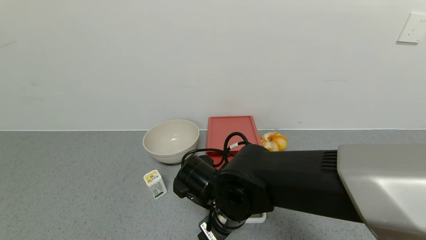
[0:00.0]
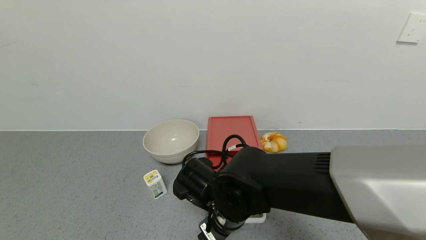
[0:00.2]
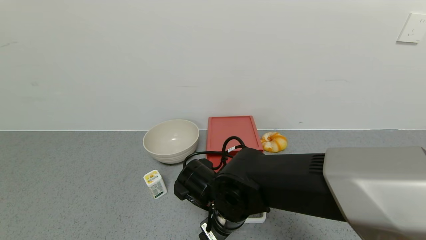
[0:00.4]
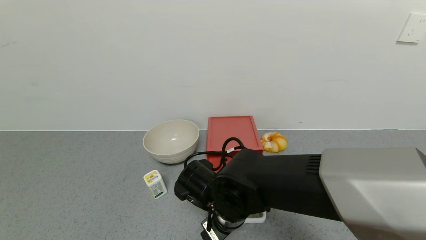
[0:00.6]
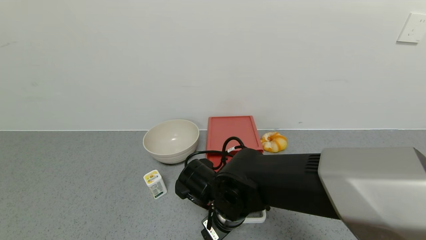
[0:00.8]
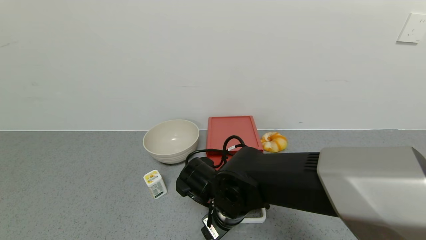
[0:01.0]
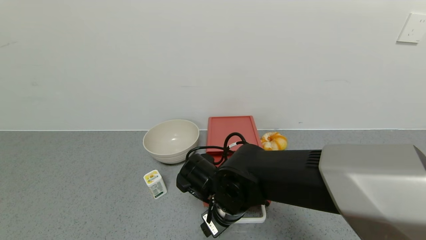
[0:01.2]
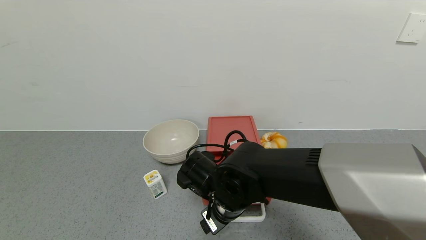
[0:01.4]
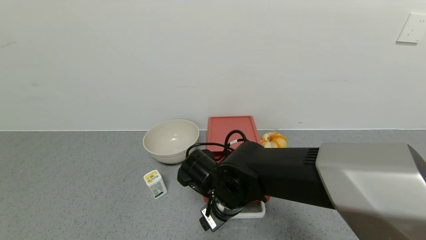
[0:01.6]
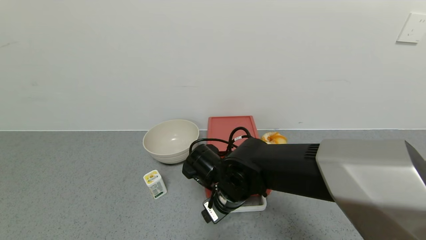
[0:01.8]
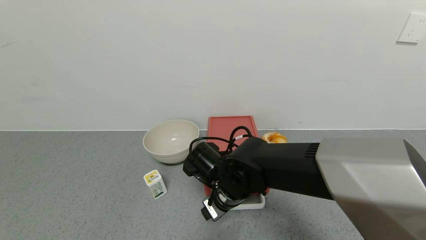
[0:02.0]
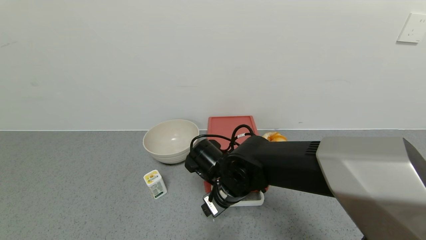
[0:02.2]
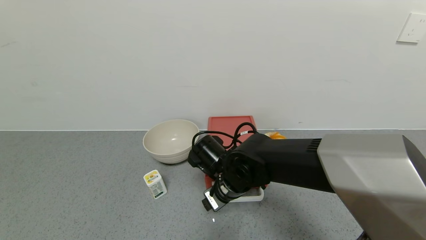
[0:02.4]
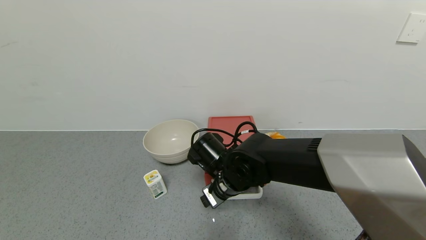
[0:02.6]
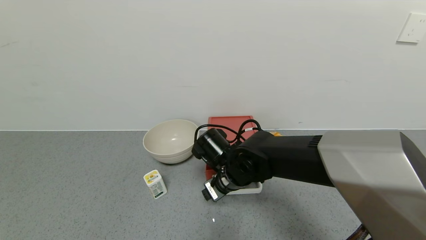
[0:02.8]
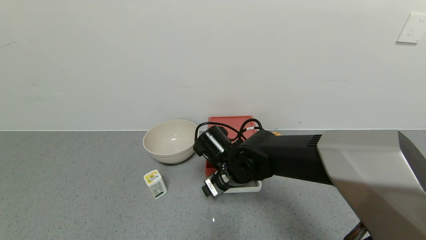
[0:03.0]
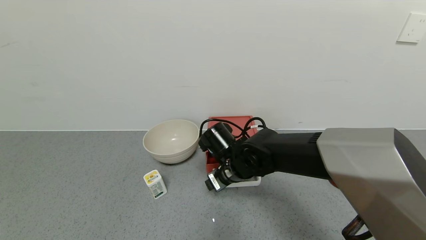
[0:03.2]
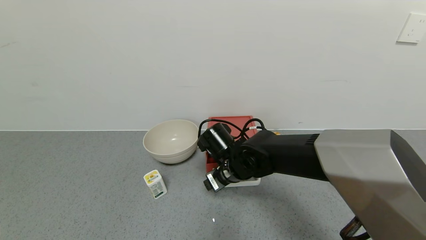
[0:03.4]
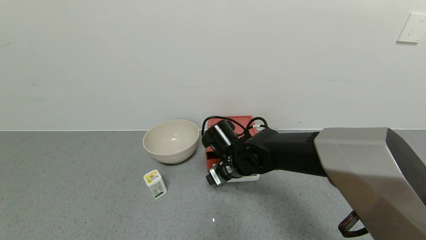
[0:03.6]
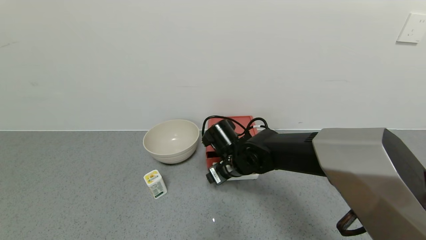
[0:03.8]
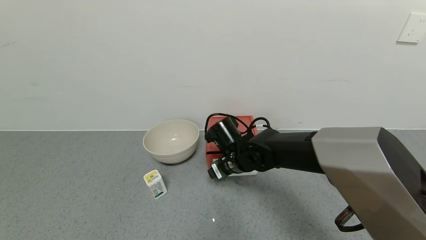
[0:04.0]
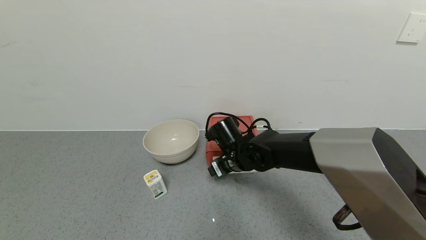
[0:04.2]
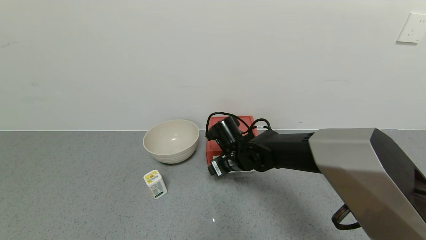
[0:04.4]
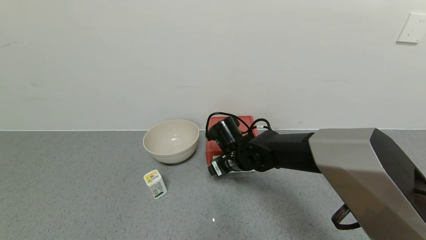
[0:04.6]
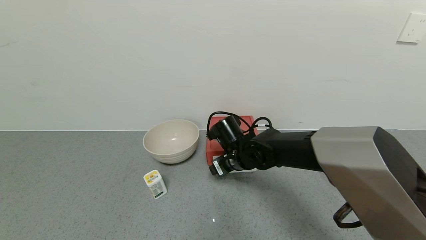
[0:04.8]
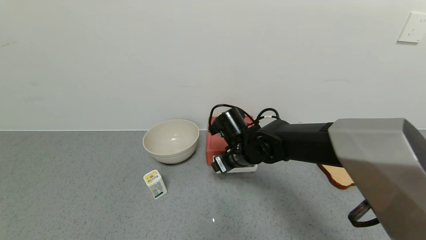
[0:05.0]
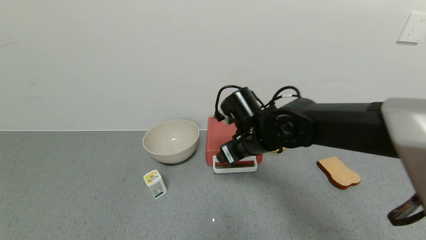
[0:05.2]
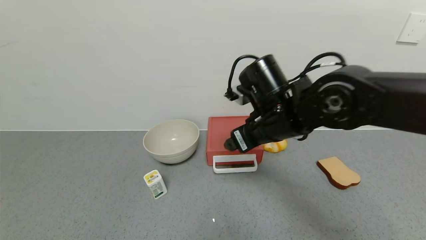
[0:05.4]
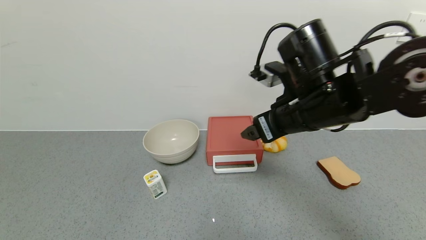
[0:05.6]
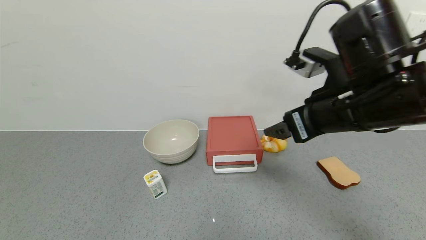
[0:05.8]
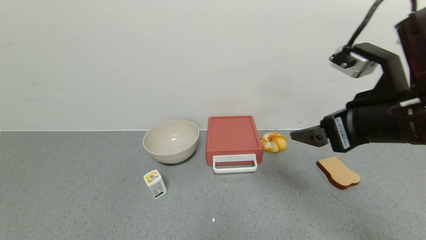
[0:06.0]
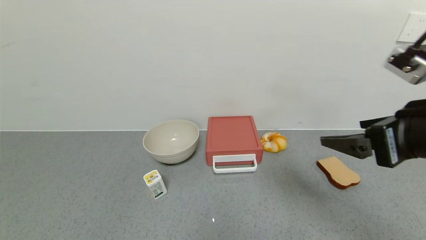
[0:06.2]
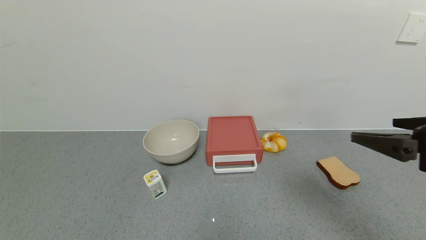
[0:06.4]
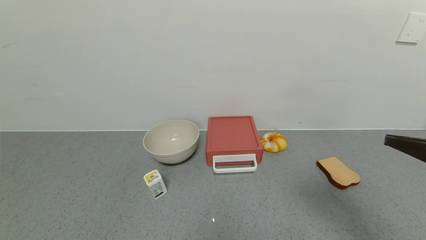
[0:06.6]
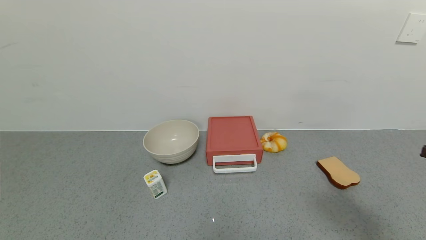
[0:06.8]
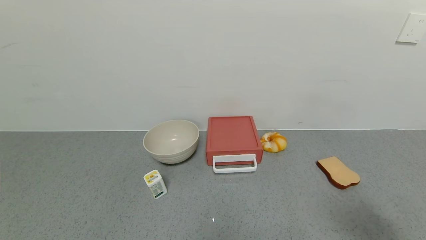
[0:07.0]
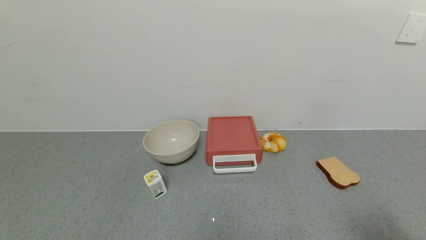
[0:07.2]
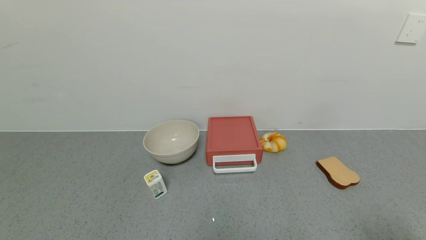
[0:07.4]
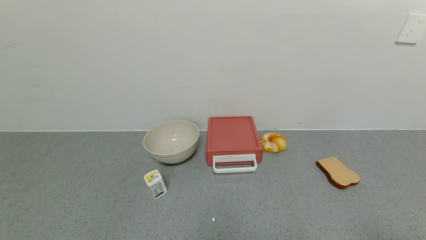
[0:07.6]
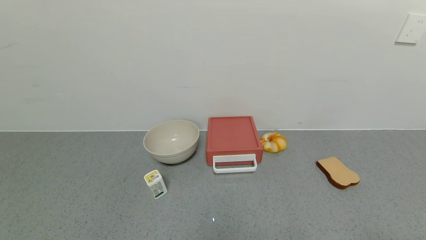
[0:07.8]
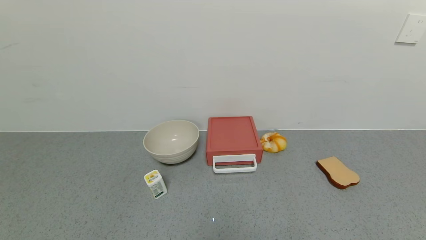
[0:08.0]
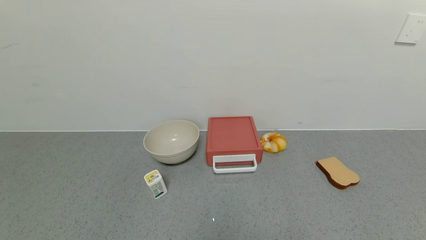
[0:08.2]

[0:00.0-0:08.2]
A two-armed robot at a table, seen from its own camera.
Task of the whole recording: use the gripper to open the drawer and close the red drawer.
Step, 0:00.0 to 0:05.2: Close the red drawer with the right gripper.
0:00.0 to 0:01.6: There are only small adjustments of the grippers.
0:01.6 to 0:03.2: The right gripper heads forward, covering roughly 5 cm.
0:03.2 to 0:05.0: The grippers move only a little.
0:05.0 to 0:06.6: The right gripper heads to the right, backward and upward, covering roughly 40 cm.
0:06.6 to 0:08.2: The right gripper travels backward and downward by approximately 20 cm.
